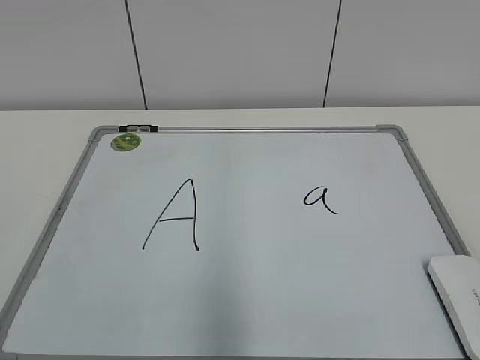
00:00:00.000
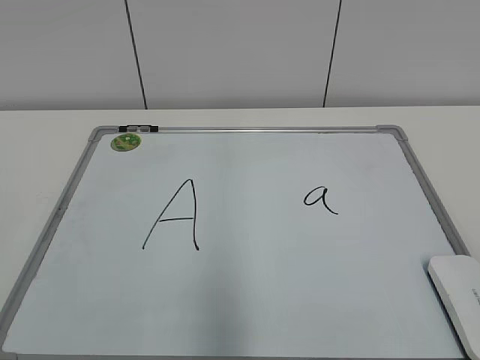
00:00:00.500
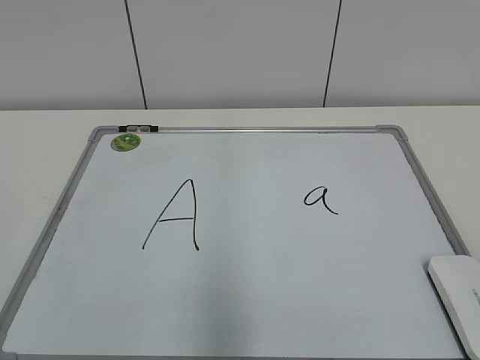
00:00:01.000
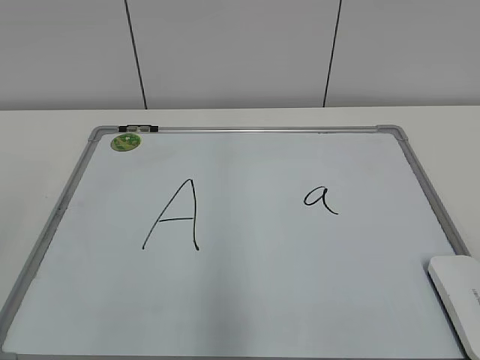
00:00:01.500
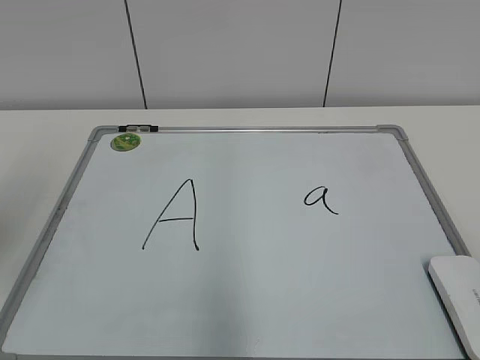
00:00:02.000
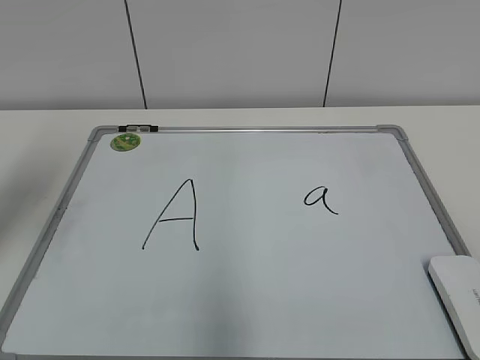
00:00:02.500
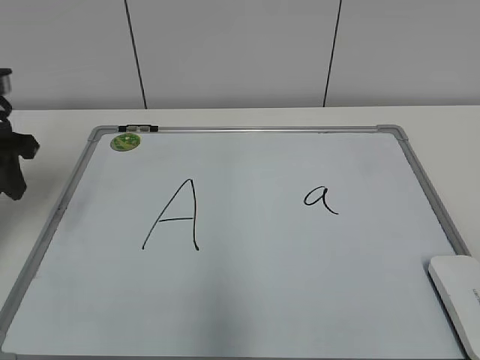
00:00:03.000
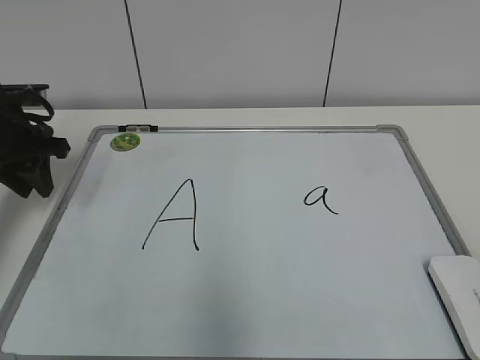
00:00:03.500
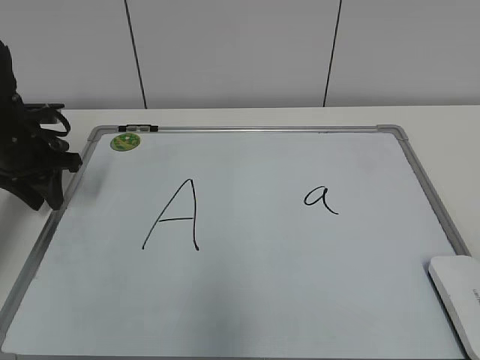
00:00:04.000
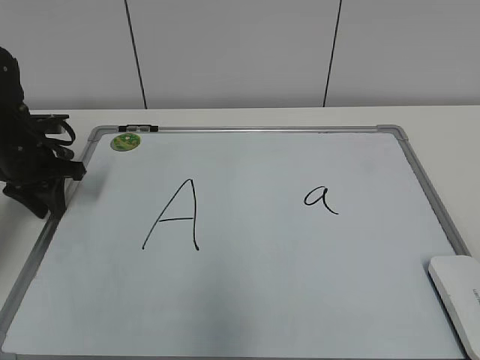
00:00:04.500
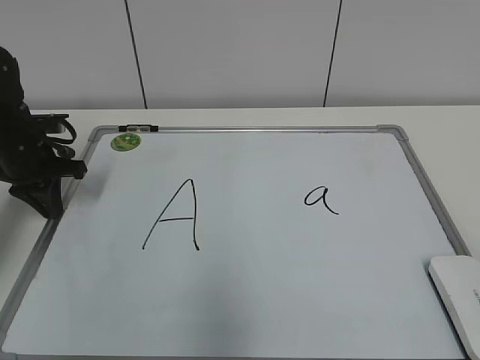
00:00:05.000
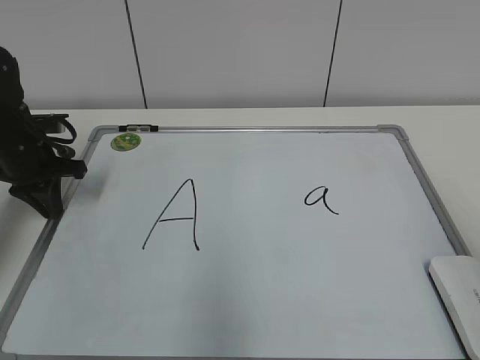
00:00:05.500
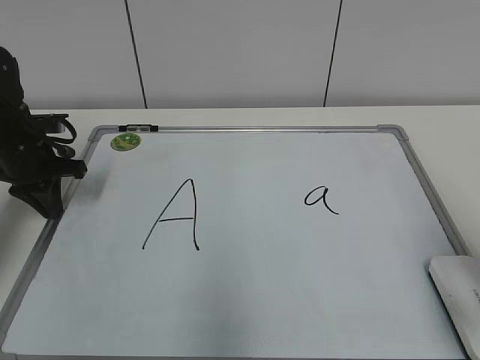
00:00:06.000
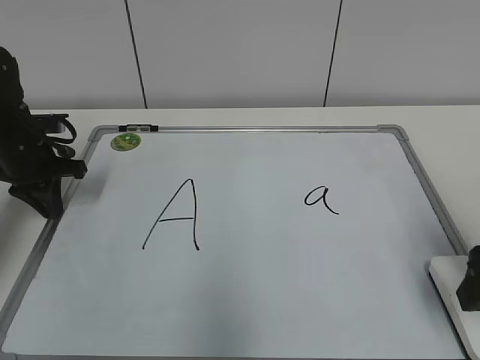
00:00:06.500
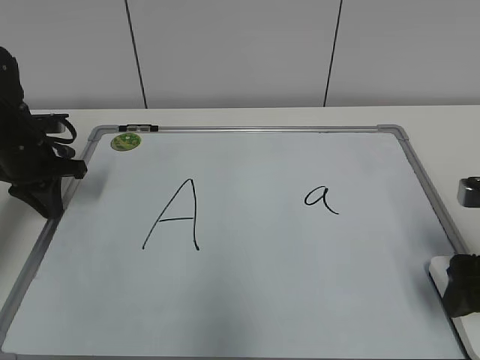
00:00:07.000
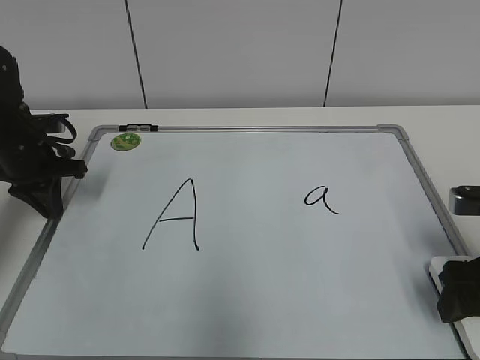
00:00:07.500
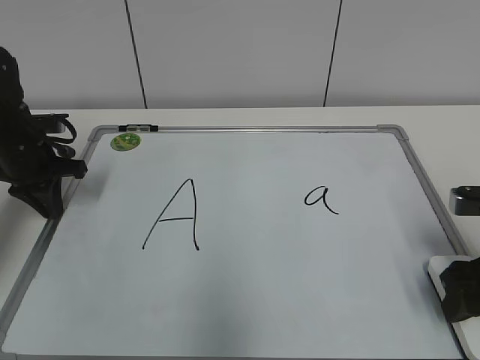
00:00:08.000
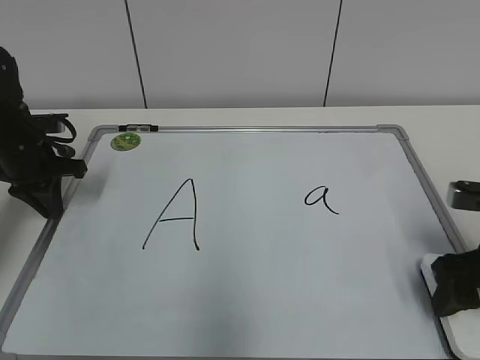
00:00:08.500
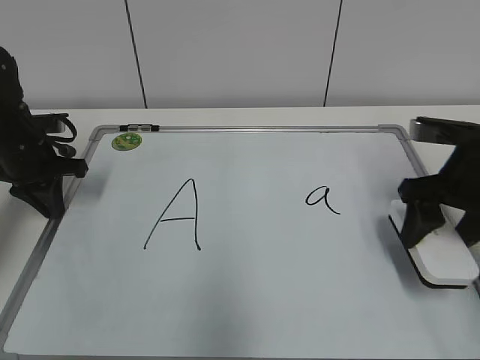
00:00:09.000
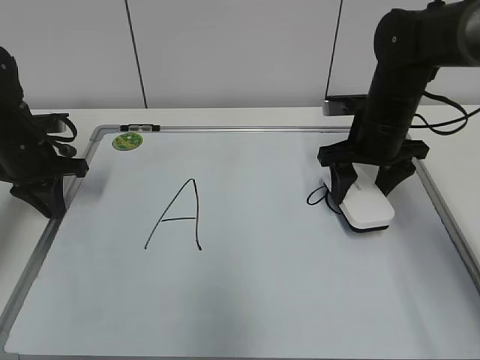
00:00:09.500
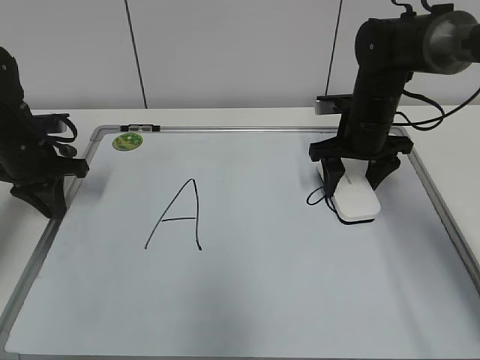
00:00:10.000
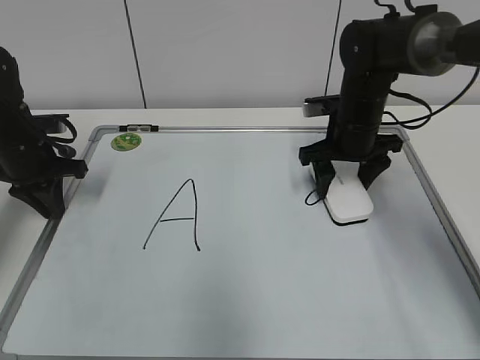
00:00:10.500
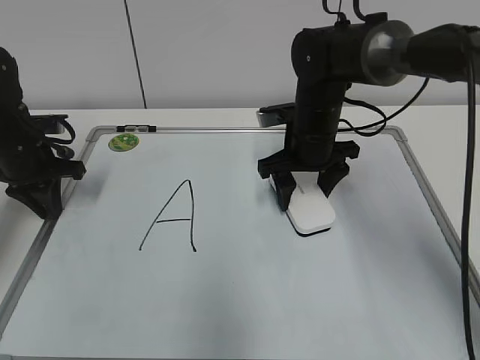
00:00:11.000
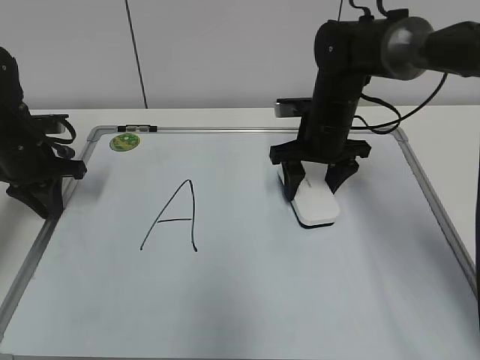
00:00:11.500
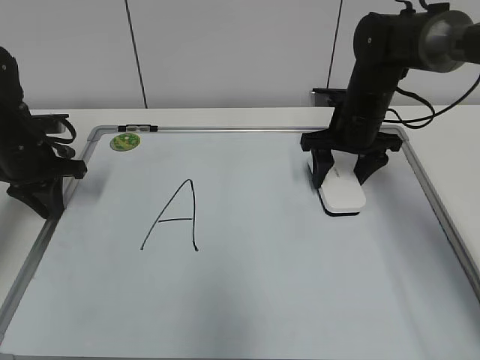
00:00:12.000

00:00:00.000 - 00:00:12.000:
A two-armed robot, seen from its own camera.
Task of the whole recording: pick up the eraser on the blackboard and erase the letter "a".
Step, 00:00:00.000 - 00:00:04.500: Hold the drawing board steady with your left hand.
Step, 00:00:05.000 - 00:00:08.000: Grab the eraser with your right hand.
Step, 00:00:08.500 - 00:00:11.500: Erase the letter a with your right hand.
00:00:02.000 - 00:00:04.000: The left gripper goes some 25 cm forward and downward.
00:00:04.000 - 00:00:06.000: The right gripper goes roughly 15 cm forward, and opens. The left gripper closes up.
00:00:06.000 - 00:00:08.000: The right gripper is displaced downward and forward by about 10 cm, and closes up.
00:00:08.000 - 00:00:10.000: The right gripper travels forward and to the left by roughly 25 cm.
00:00:10.000 - 00:00:12.000: The right gripper reaches some 10 cm to the left, then returns.

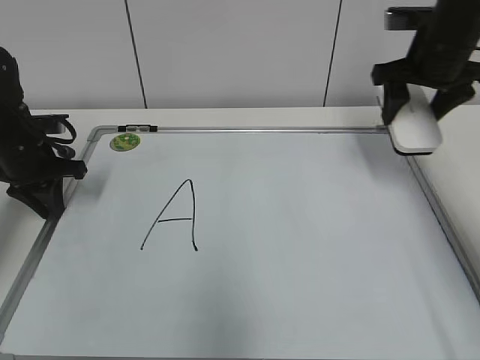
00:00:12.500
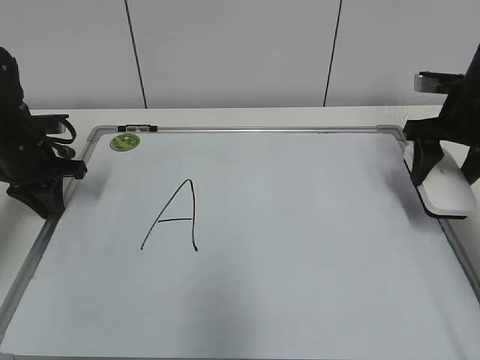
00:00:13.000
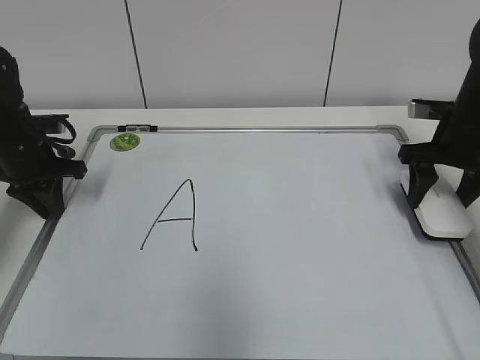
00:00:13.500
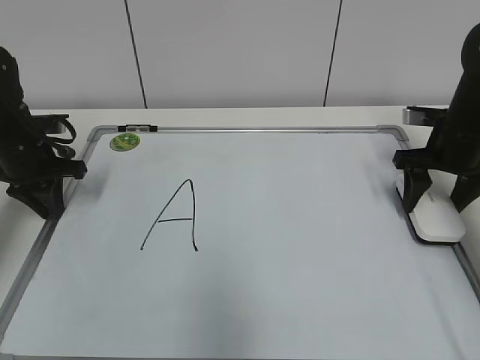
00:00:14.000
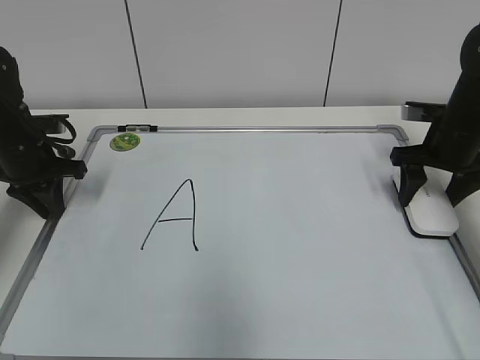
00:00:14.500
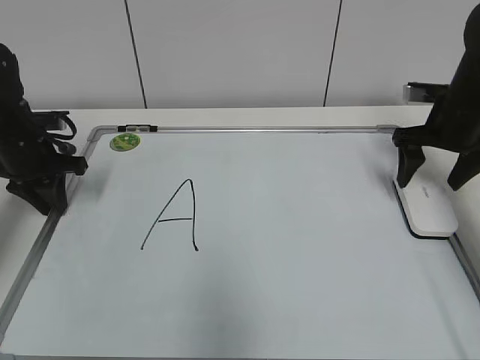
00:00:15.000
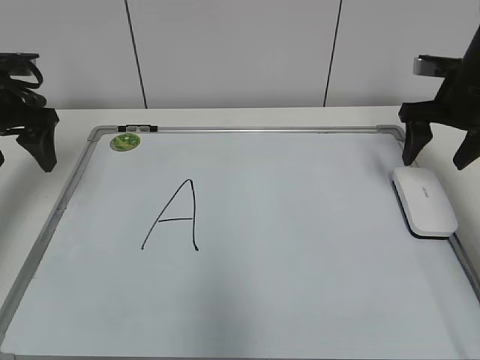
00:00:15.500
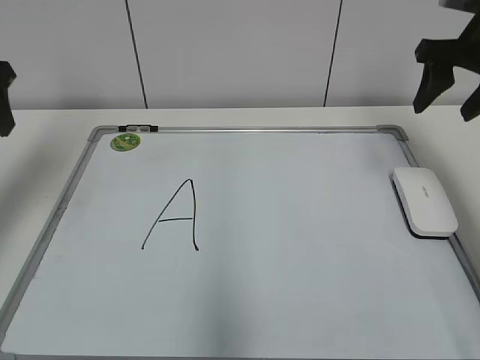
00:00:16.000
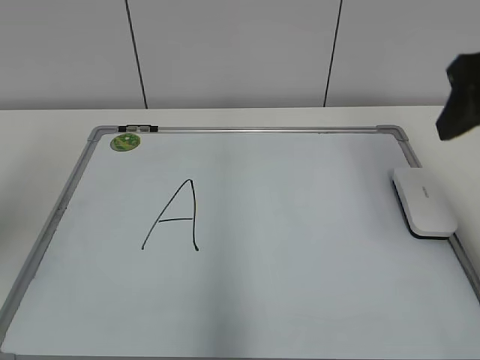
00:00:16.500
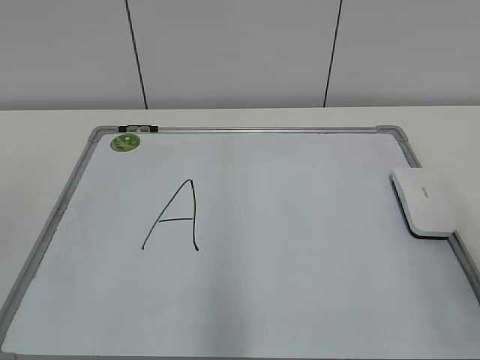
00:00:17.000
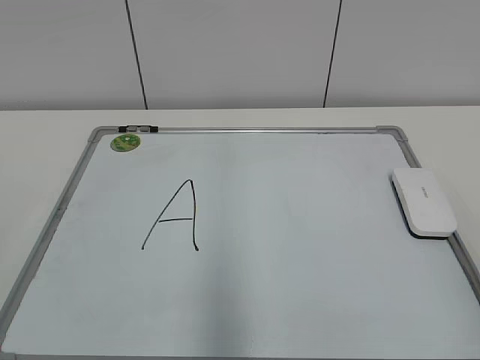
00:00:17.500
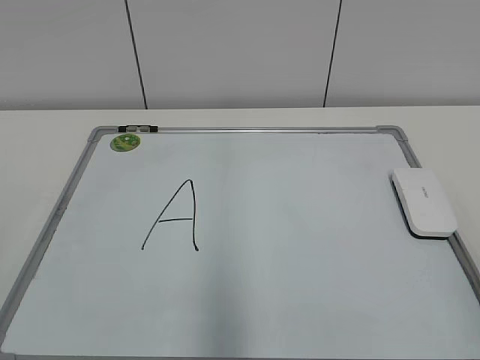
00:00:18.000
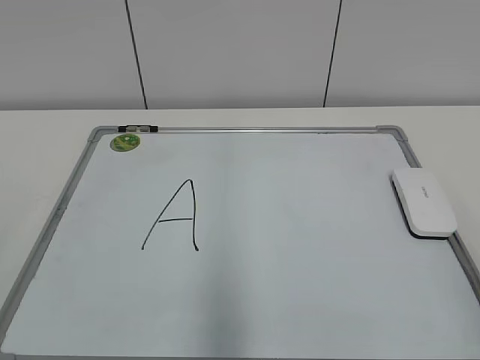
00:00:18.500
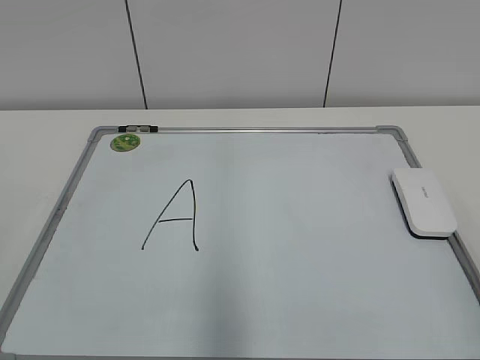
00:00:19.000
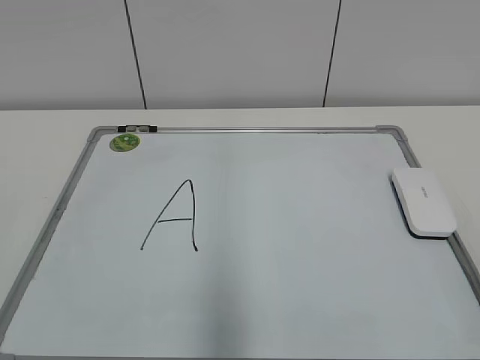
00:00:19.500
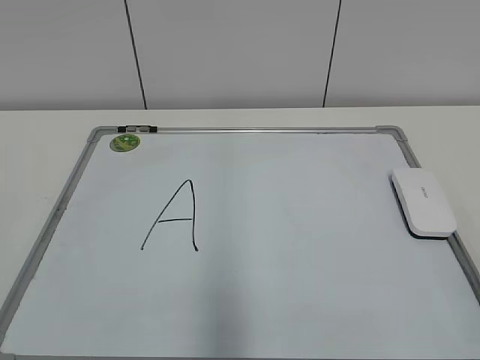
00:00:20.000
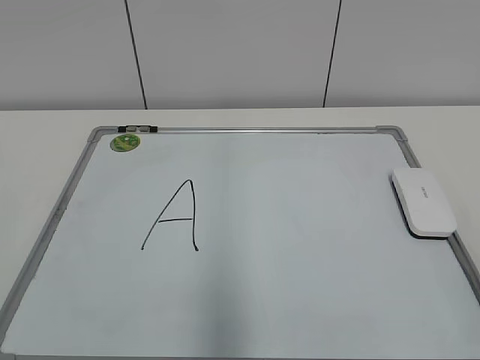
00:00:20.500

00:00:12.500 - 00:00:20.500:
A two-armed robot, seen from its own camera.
Task of the whole recording: pick up the eraser on the blackboard and erase the letter "a".
Step, 00:00:12.500 - 00:00:14.500: Put down the eraser with your right hand.
00:00:12.500 - 00:00:14.500: The right gripper shifts approximately 10 cm downward.
00:00:14.500 - 00:00:16.500: The left gripper is displaced backward and upward by roughly 30 cm, and opens its fingers. Meanwhile the right gripper moves upward and backward, some 25 cm, and opens and closes again.
00:00:16.500 - 00:00:18.500: The grippers both shift backward by about 20 cm.
